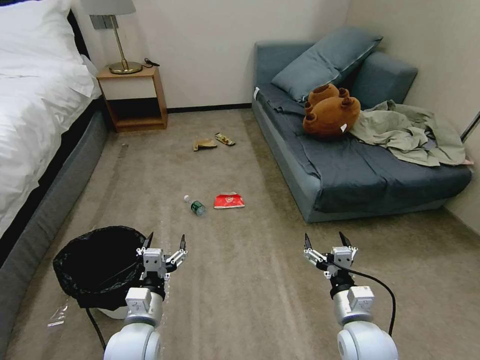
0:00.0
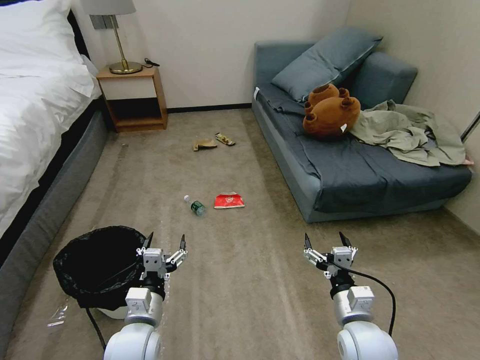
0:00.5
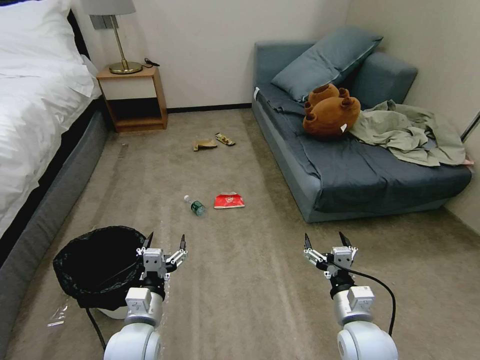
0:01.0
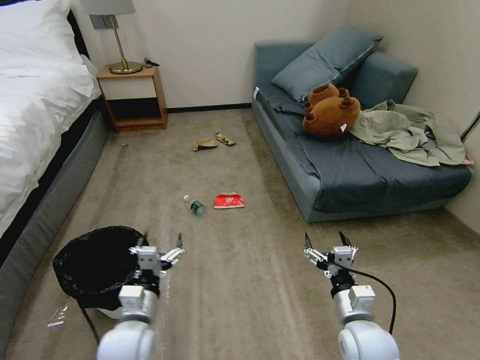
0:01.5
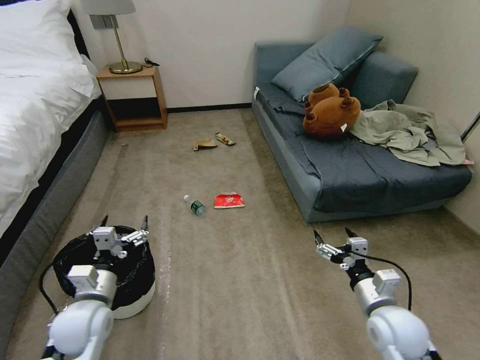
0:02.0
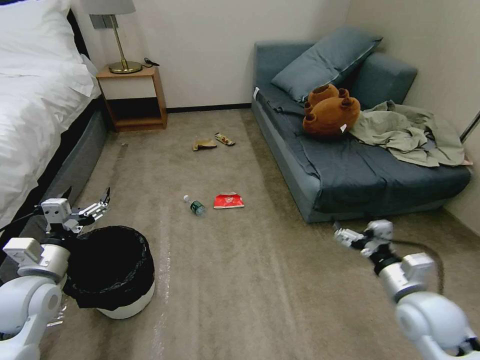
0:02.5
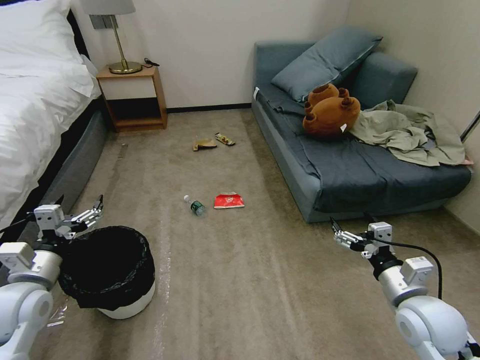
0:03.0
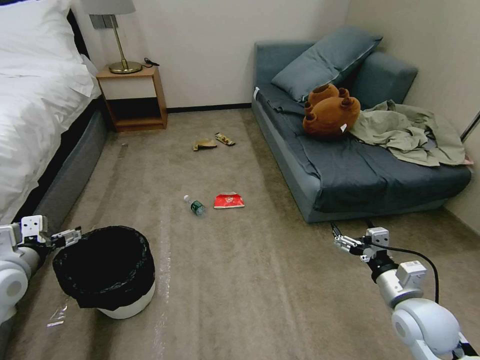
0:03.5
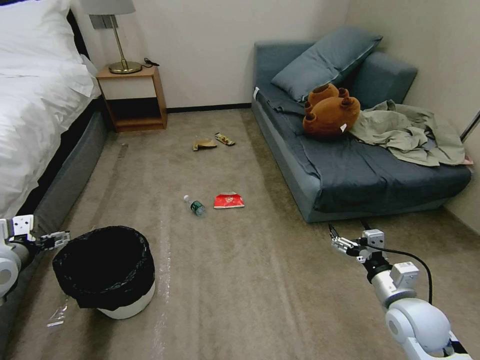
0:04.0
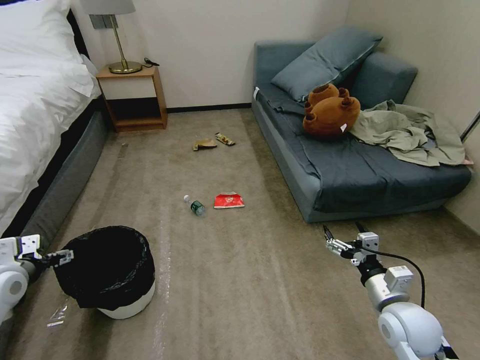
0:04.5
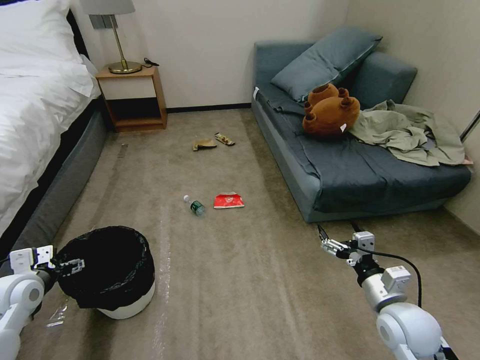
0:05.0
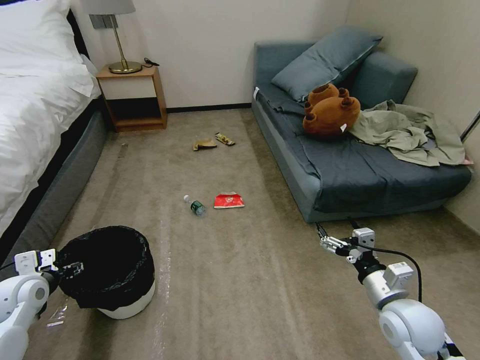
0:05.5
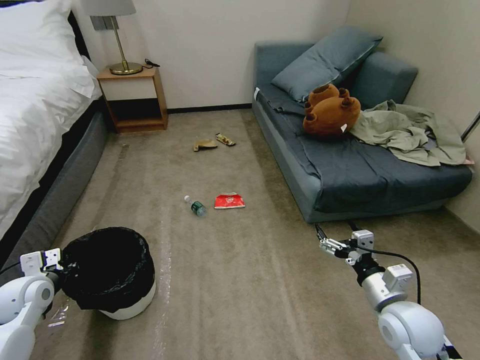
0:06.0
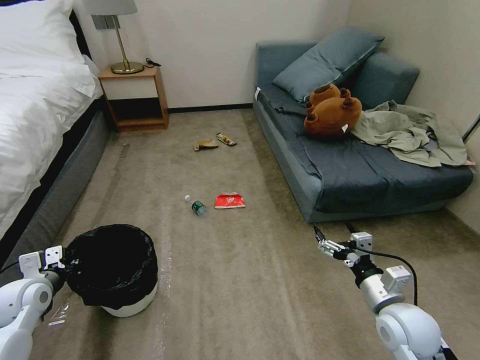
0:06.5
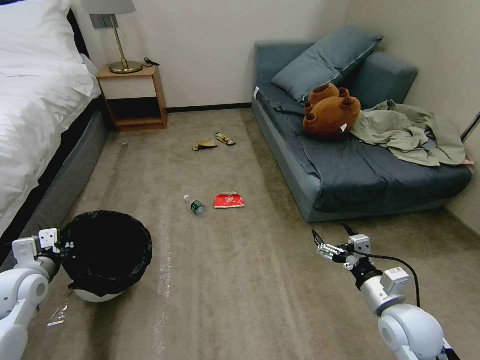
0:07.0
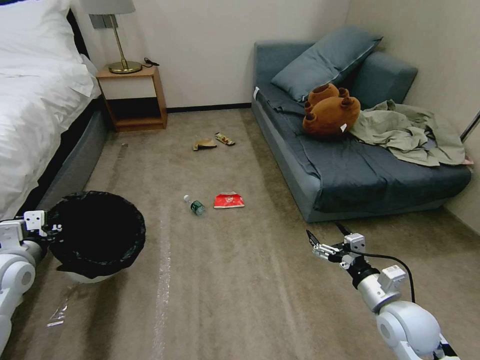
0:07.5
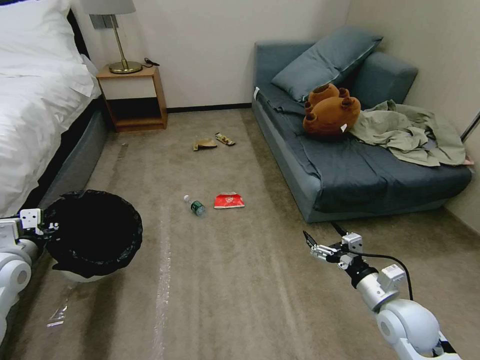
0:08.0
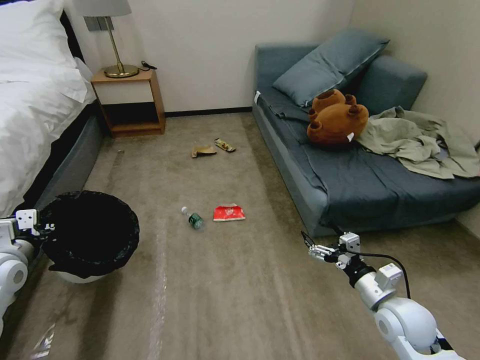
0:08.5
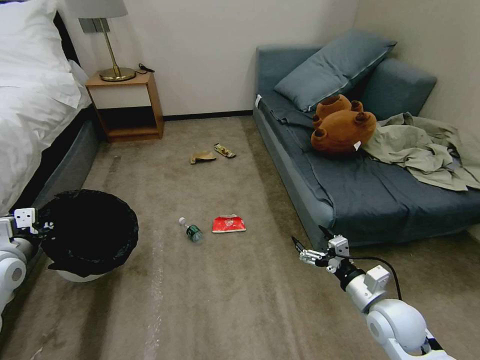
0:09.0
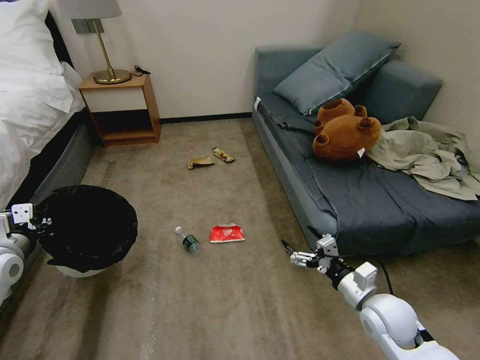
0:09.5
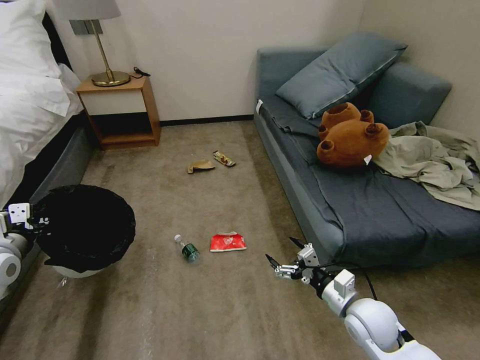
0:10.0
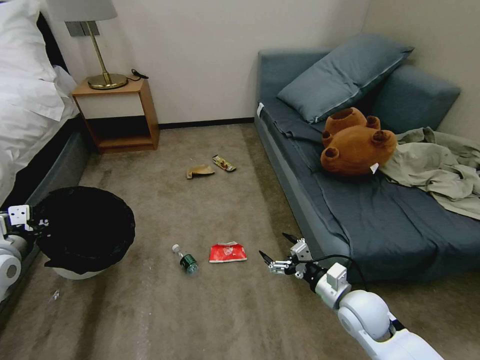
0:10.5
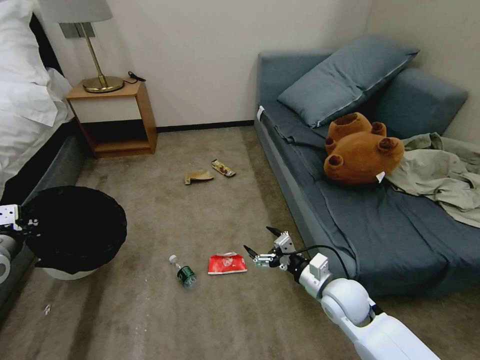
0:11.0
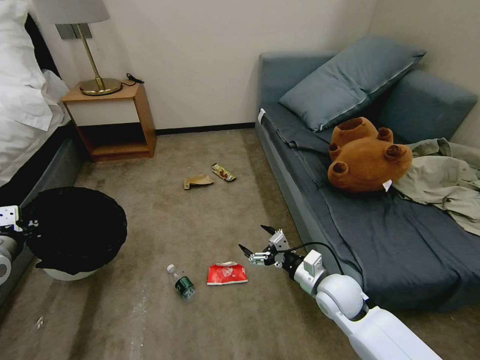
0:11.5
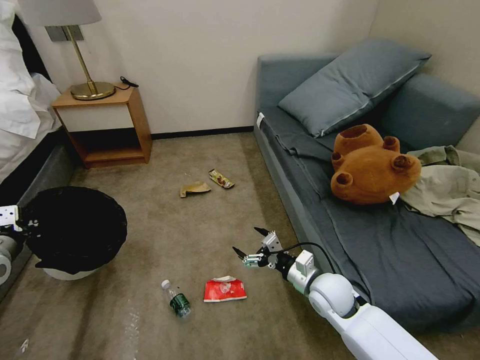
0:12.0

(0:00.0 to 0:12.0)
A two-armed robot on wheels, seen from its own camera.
Task of the whole recording: Pick up the trash bin, then pick up the garbage on the floor and place it into the trash bin.
0:02.0 - 0:04.0: The left gripper goes approximately 20 cm to the left and upward.
0:04.0 - 0:06.0: The left gripper travels downward by about 15 cm, and closes.
0:06.0 - 0:08.0: The left gripper goes some 10 cm upward.
0:08.0 - 0:10.0: The right gripper moves to the left, about 5 cm.
0:10.0 - 0:12.0: The right gripper shifts some 10 cm to the left and forward.

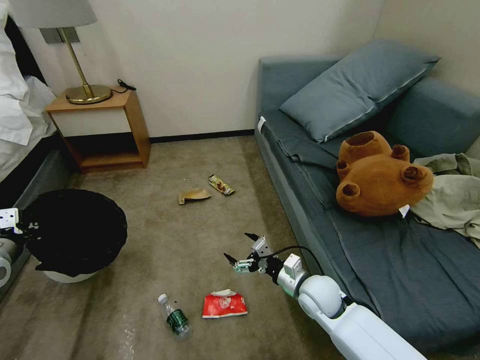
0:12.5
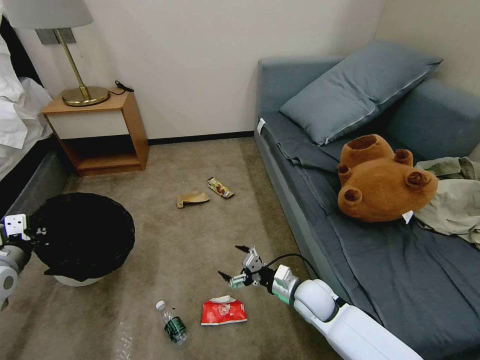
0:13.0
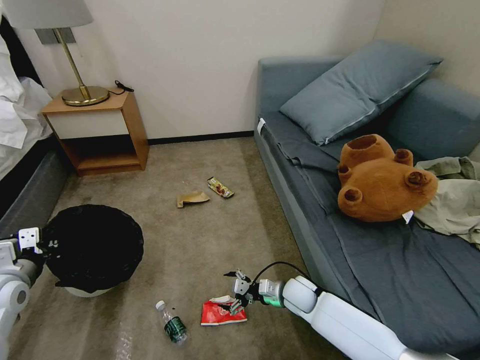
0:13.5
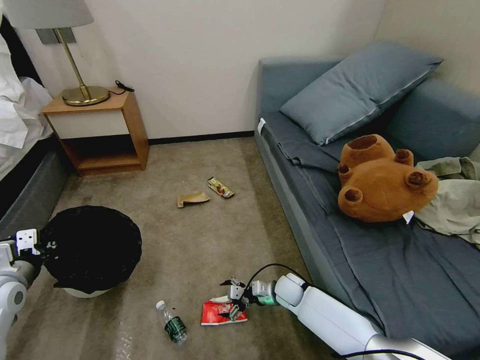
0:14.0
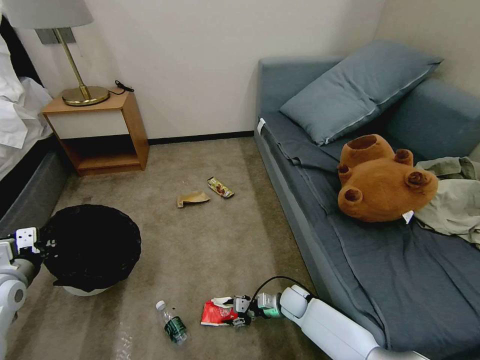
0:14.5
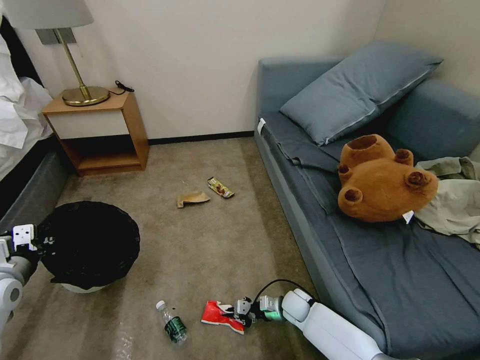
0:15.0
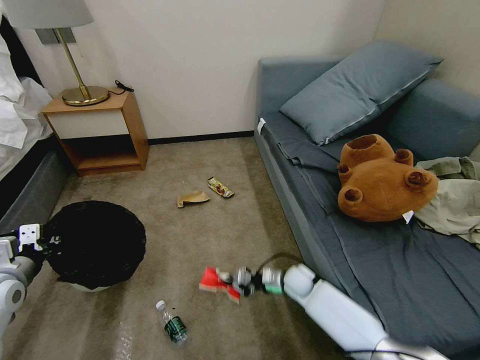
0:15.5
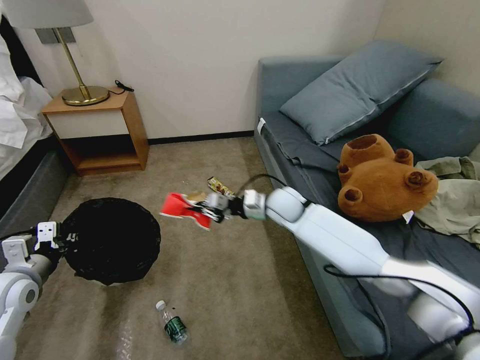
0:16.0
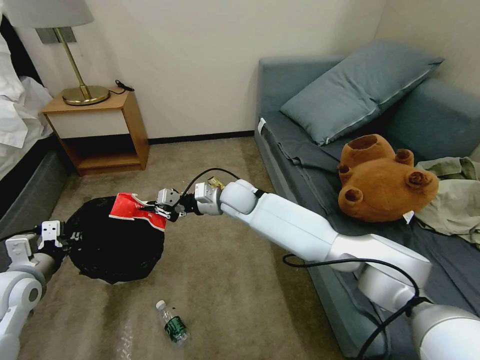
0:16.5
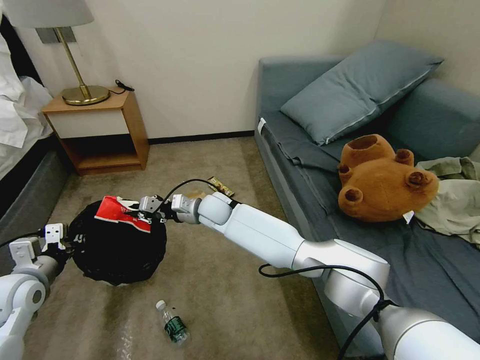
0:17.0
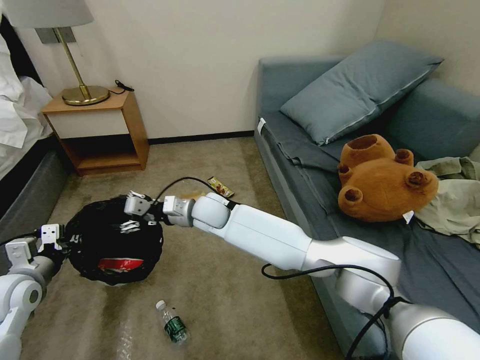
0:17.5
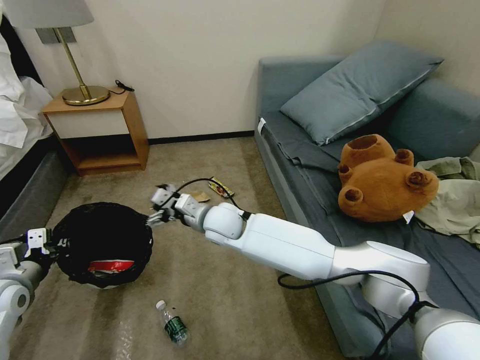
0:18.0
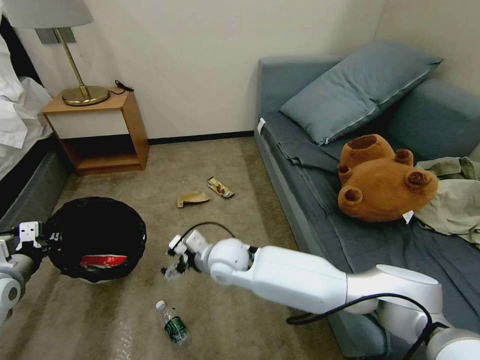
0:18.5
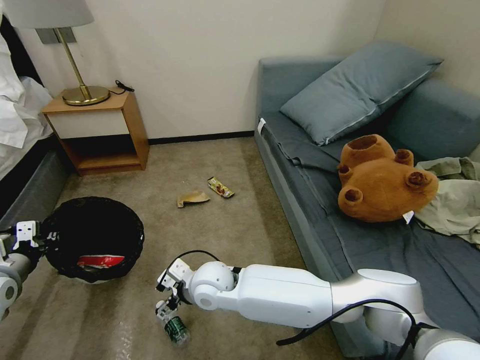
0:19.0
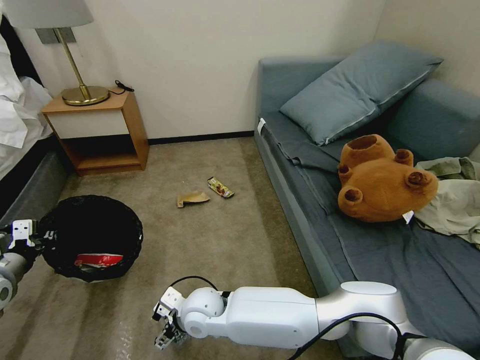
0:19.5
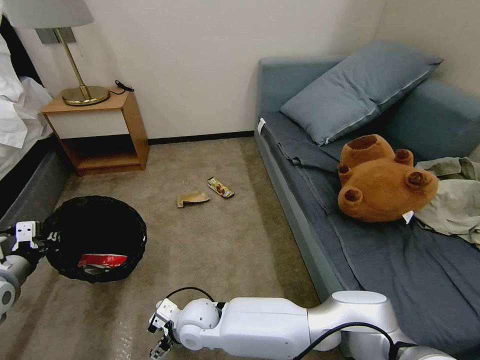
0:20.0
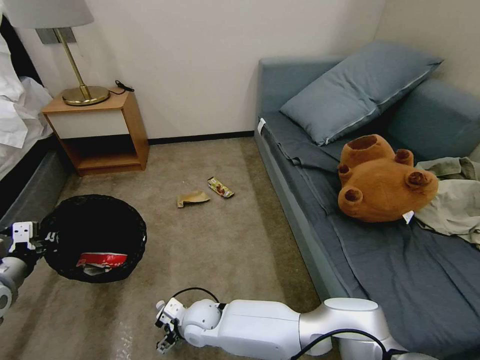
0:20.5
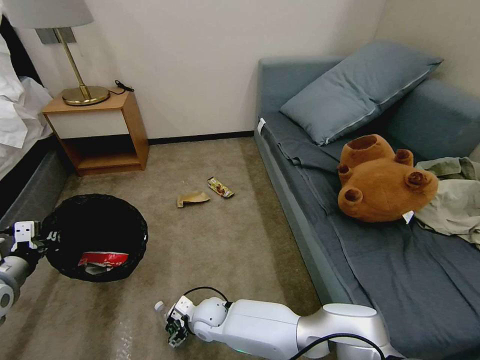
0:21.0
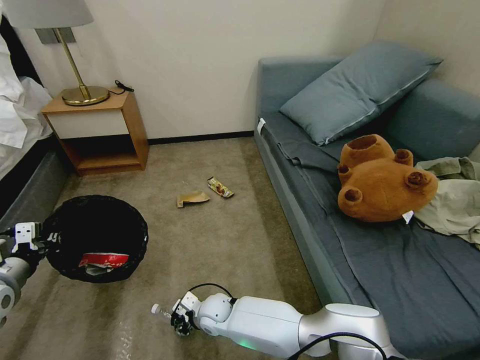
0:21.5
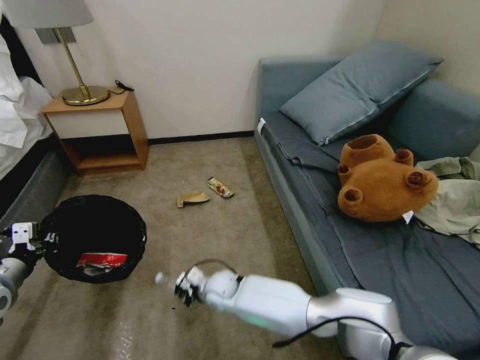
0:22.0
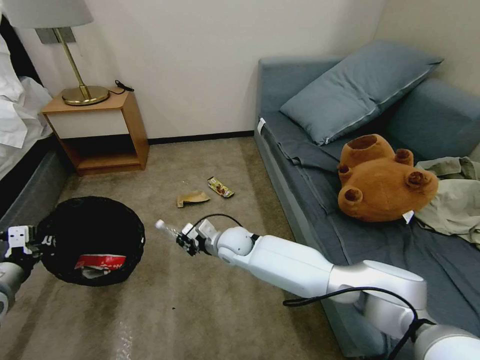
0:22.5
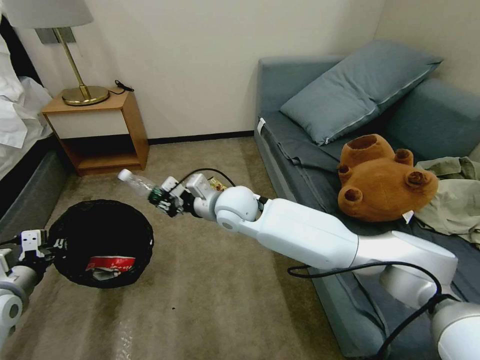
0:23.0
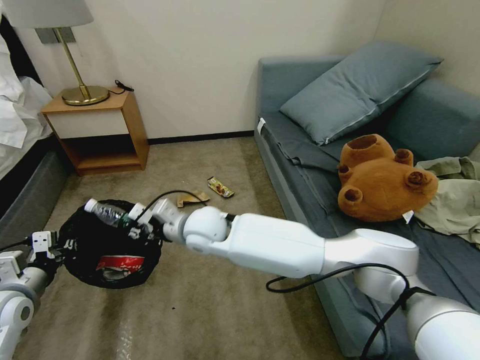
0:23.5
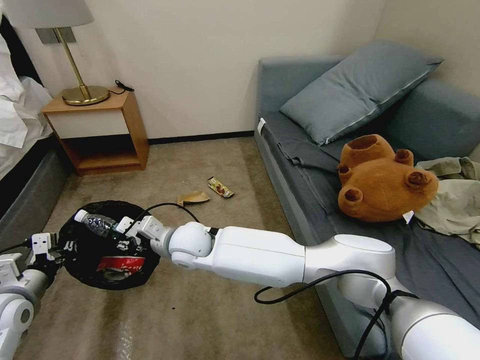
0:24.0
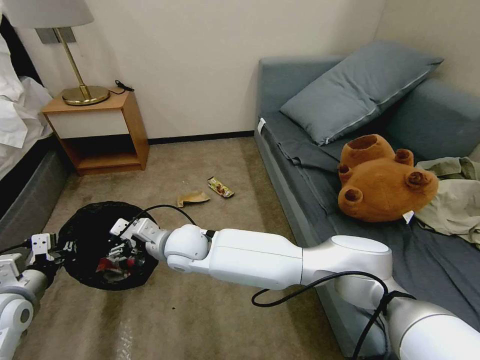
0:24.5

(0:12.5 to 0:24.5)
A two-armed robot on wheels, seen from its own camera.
Task of the whole recording: Pick up the trash bin, then pick up the garbage on the floor and place it into the trash bin.
0:12.5 - 0:14.5: The left gripper ends up approximately 5 cm from where it was. The right gripper heads downward, covering roughly 15 cm, and closes up.
0:14.5 - 0:16.5: The right gripper heads upward, to the left and forward, covering some 40 cm, and closes.
0:16.5 - 0:18.5: The right gripper heads backward, covering some 15 cm, and opens its fingers.
0:18.5 - 0:20.5: The right gripper heads downward, backward and to the left, covering about 20 cm.
0:20.5 - 0:22.5: The right gripper shifts approximately 20 cm forward, upward and to the right, and closes its fingers.
0:22.5 - 0:24.5: The right gripper goes about 15 cm to the left, upward and backward, and opens up.

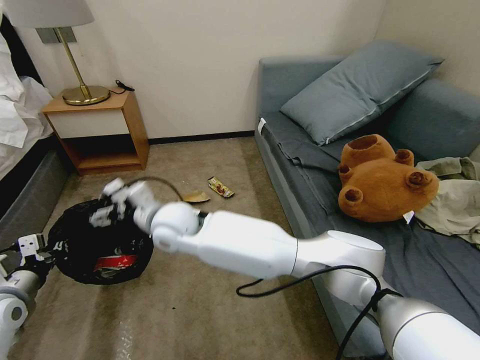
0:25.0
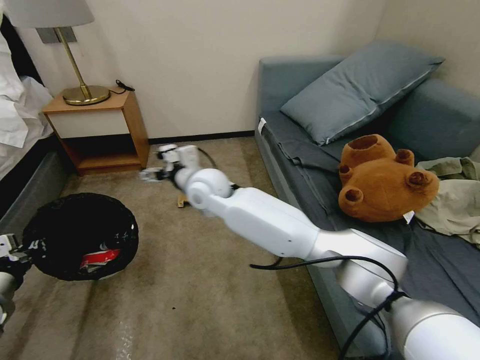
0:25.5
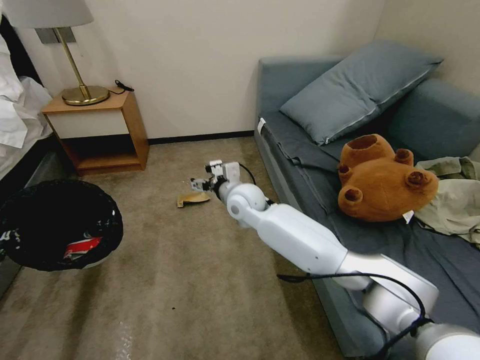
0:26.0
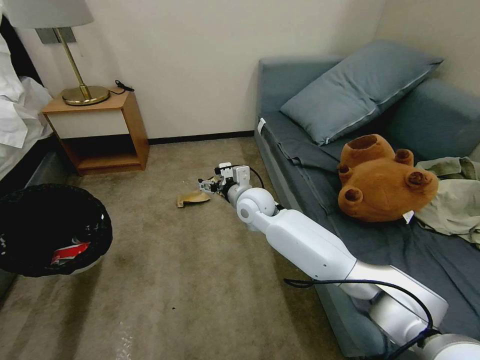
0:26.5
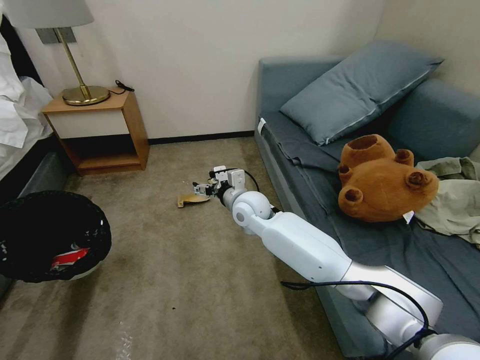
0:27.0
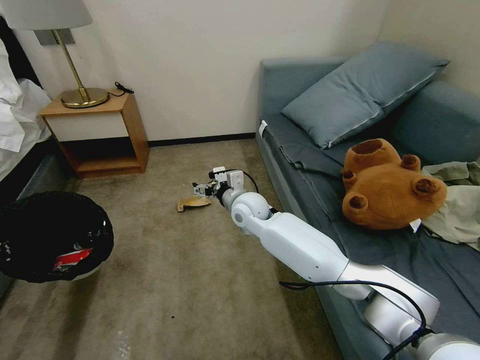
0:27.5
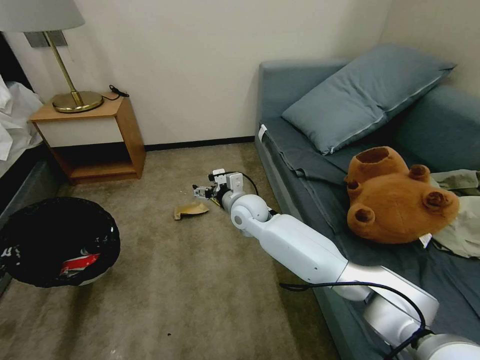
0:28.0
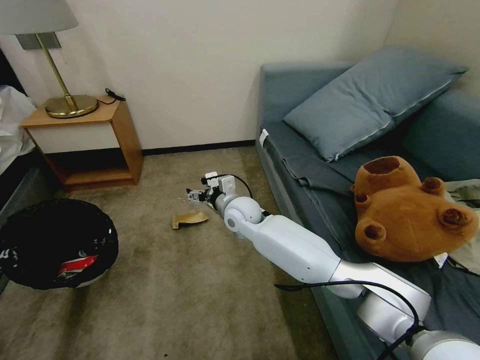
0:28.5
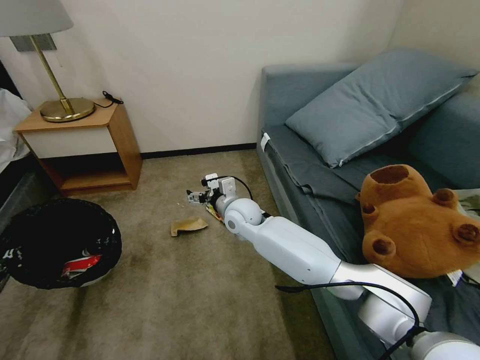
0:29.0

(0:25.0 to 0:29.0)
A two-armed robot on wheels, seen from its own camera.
Task of the whole recording: Pick up the trash bin, then pick up the garbage on the floor and place it into the trash bin.
0:25.0 - 0:27.0: The right gripper is displaced to the right and forward by some 20 cm, while the left gripper heads to the left, covering approximately 10 cm.
